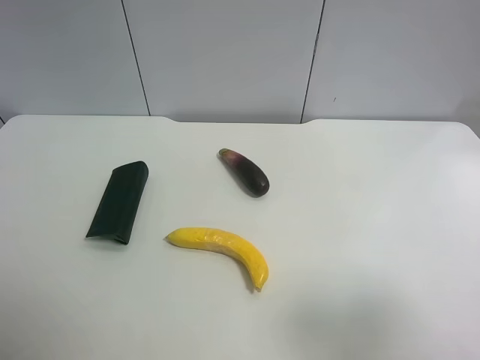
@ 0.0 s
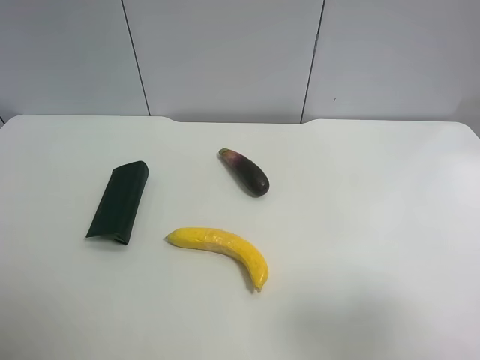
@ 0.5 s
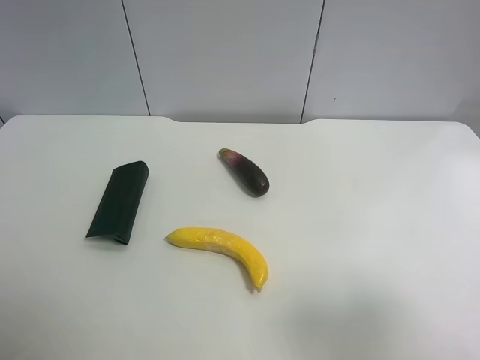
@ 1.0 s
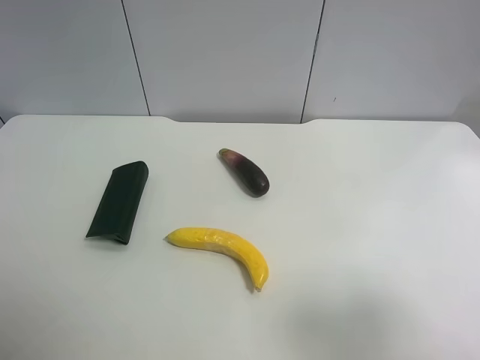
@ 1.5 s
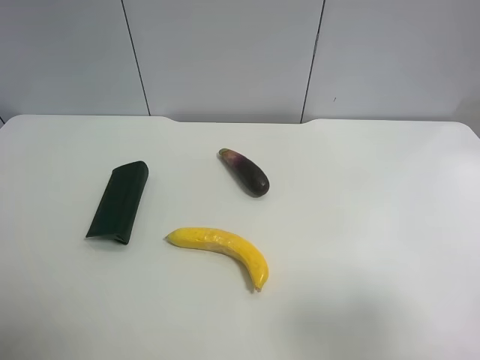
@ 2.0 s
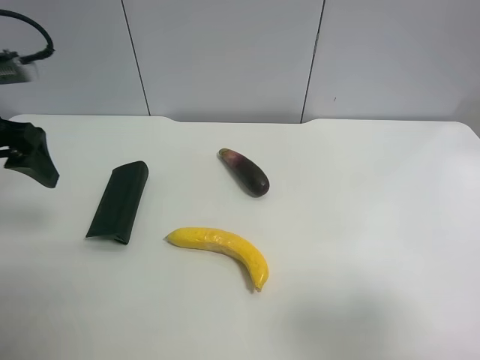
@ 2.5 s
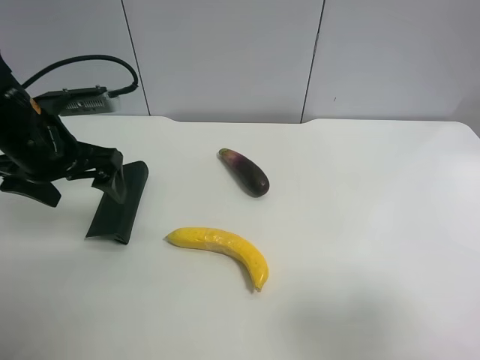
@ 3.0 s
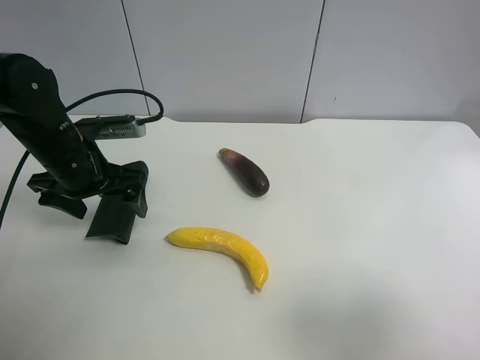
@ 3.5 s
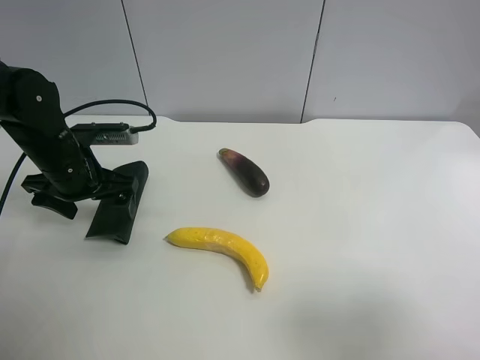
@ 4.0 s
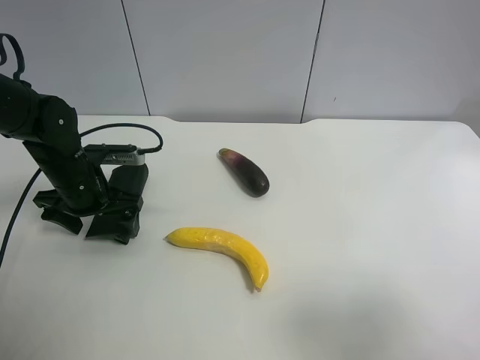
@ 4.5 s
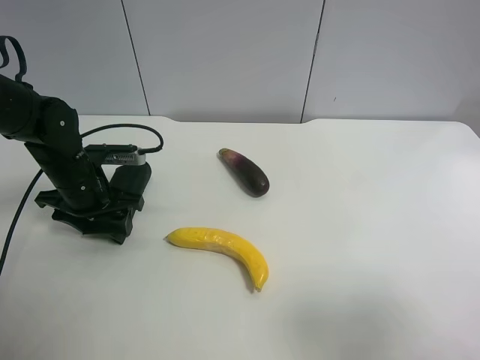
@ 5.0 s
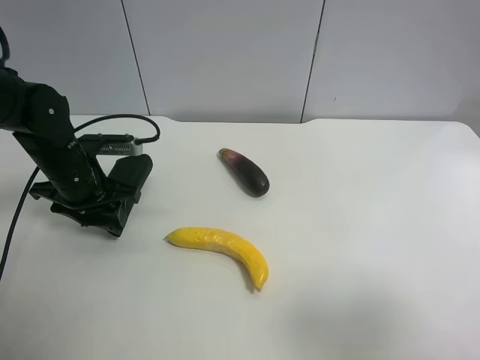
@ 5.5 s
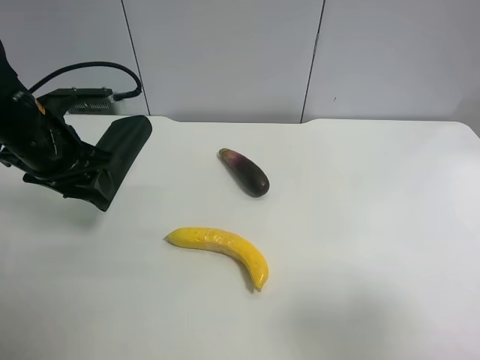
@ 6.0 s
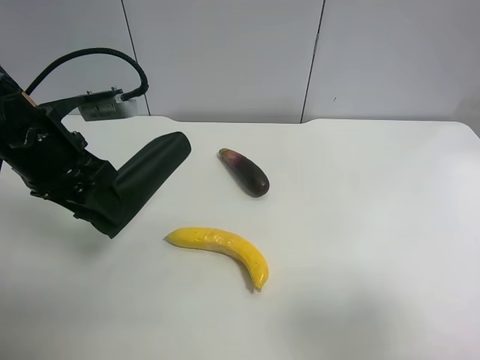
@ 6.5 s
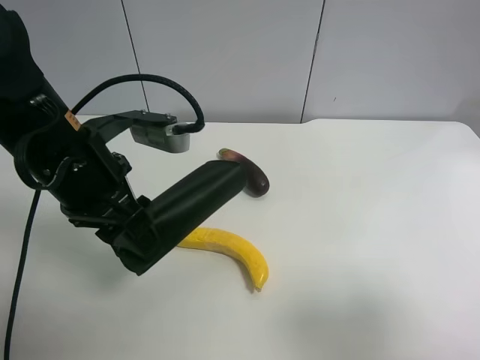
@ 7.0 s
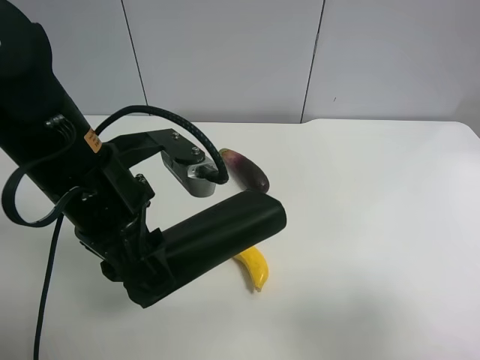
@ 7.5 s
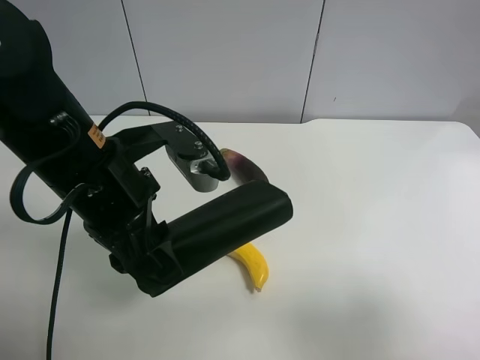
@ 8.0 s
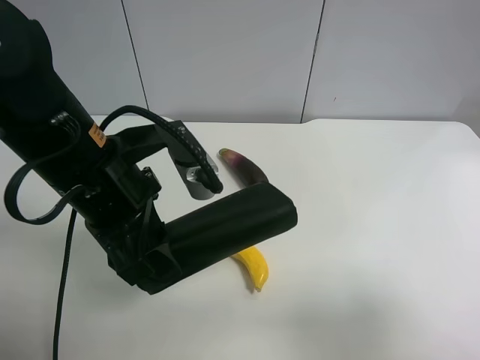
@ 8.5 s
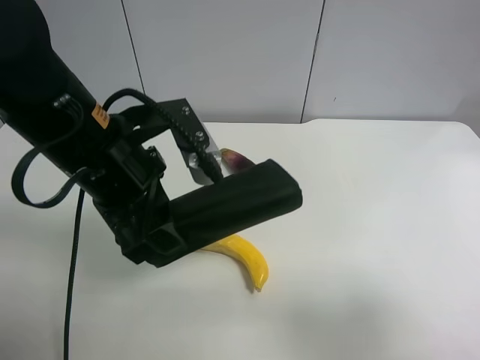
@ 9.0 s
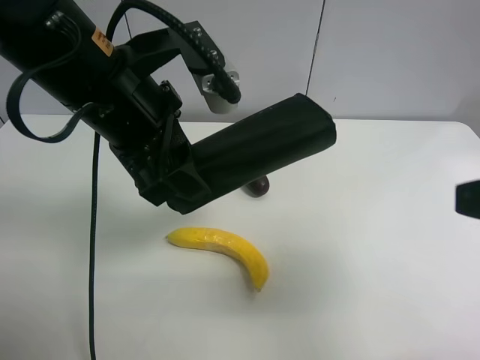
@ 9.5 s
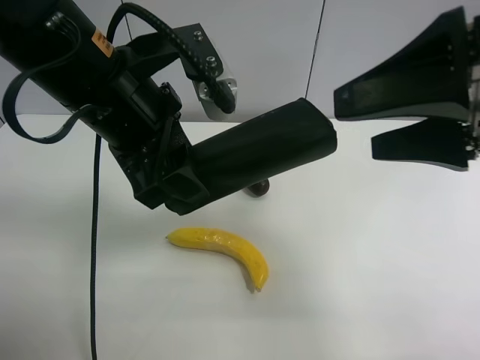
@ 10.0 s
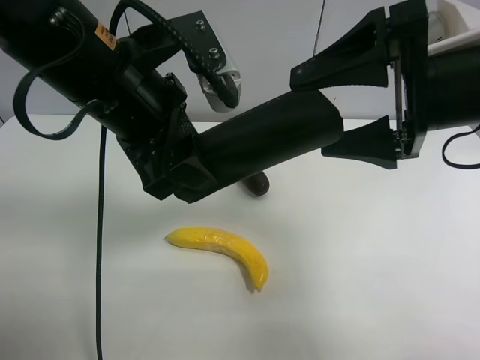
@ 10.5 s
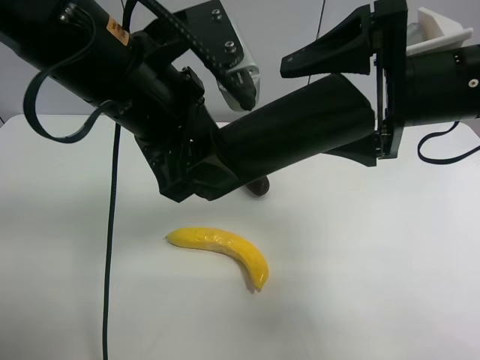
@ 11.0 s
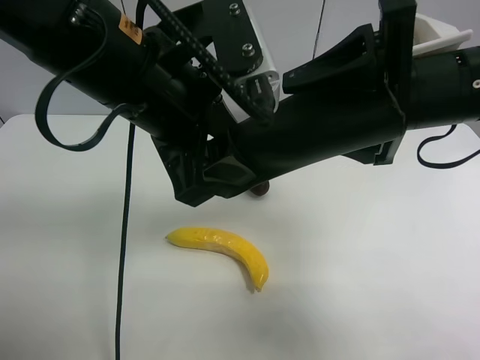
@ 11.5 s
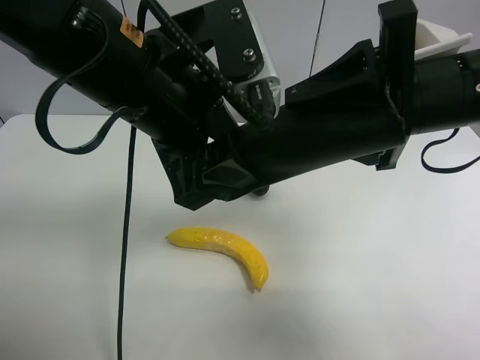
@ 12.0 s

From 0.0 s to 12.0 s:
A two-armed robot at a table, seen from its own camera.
Task of the whole recording: use the left gripper to pick up the item and transfer it from the left gripper to the right gripper.
From 2.0 s to 4.0 s: The left gripper goes roughly 25 cm downward, forward and to the right.
From 4.0 s to 6.0 s: The left gripper is displaced upward by about 5 cm, and closes its fingers.
From 6.0 s to 8.0 s: The left gripper shifts about 15 cm to the right and backward.
From 8.0 s to 10.0 s: The right gripper shifts roughly 20 cm forward and to the left. The left gripper travels upward by some 5 cm.
From 10.0 s to 12.0 s: The right gripper goes roughly 5 cm forward, and closes its fingers.

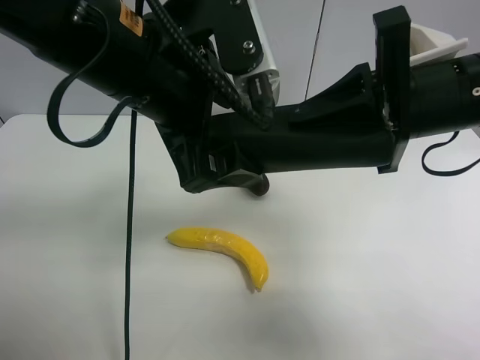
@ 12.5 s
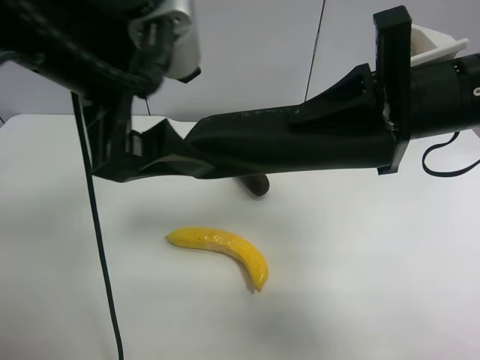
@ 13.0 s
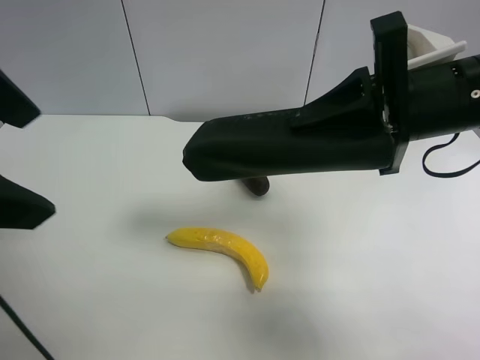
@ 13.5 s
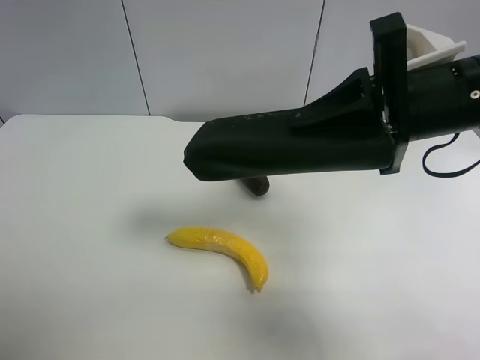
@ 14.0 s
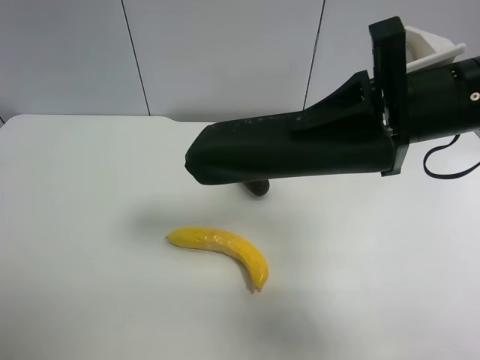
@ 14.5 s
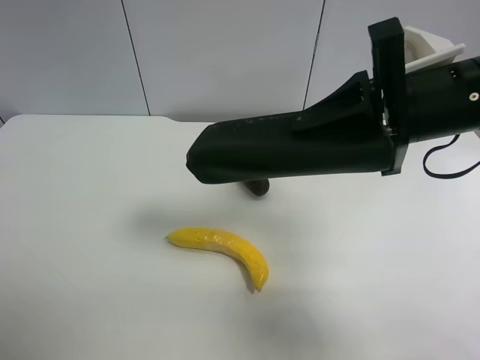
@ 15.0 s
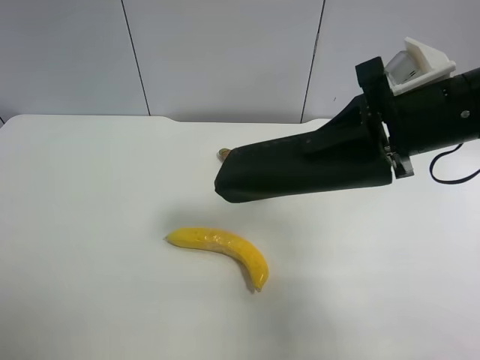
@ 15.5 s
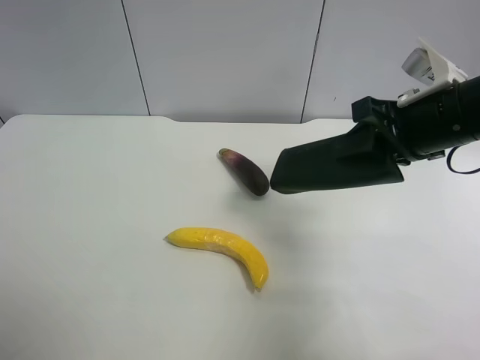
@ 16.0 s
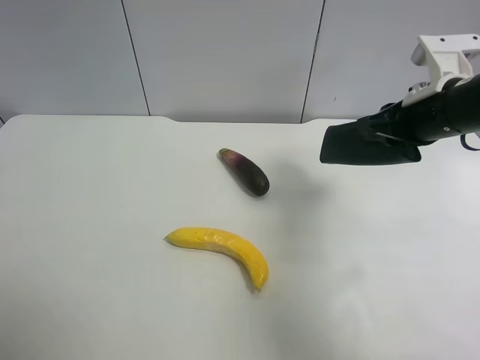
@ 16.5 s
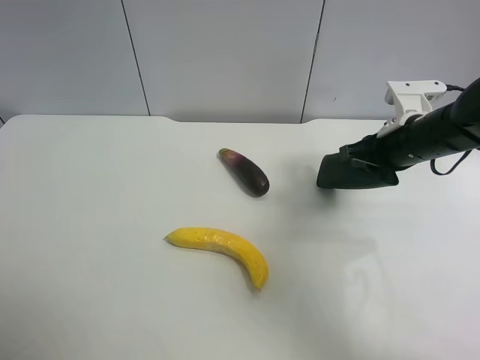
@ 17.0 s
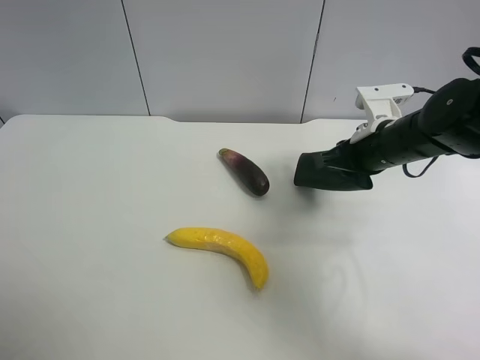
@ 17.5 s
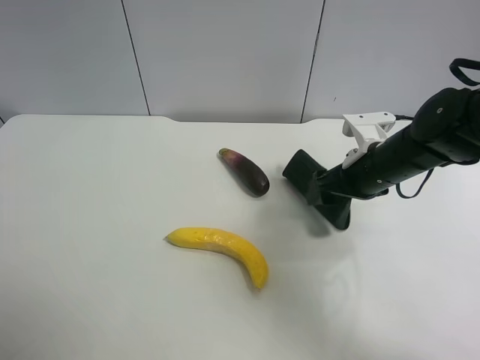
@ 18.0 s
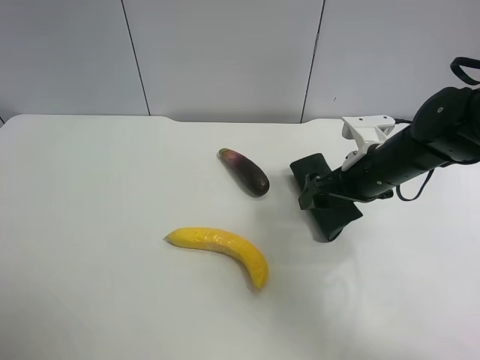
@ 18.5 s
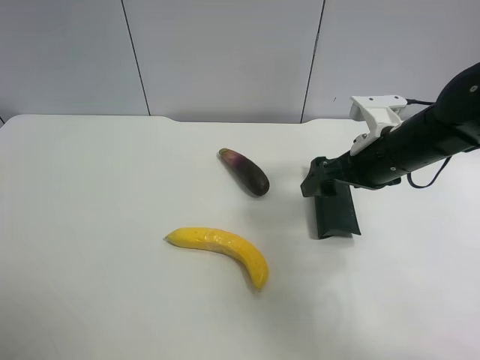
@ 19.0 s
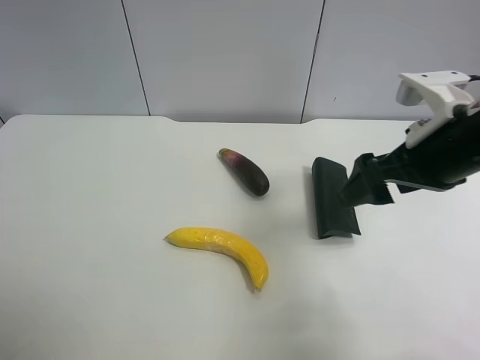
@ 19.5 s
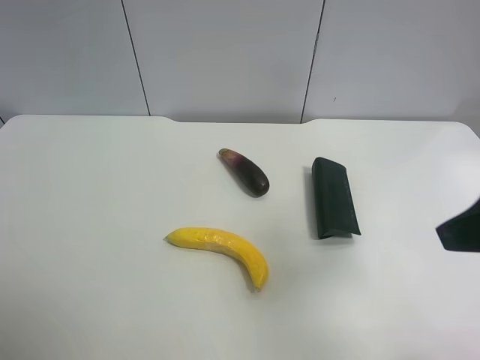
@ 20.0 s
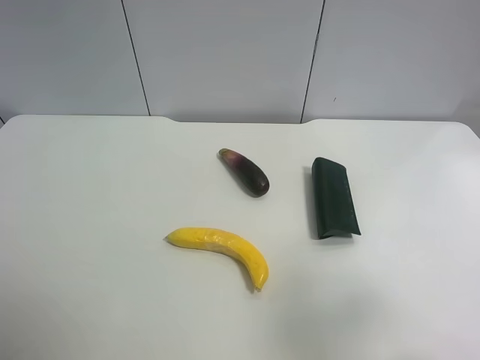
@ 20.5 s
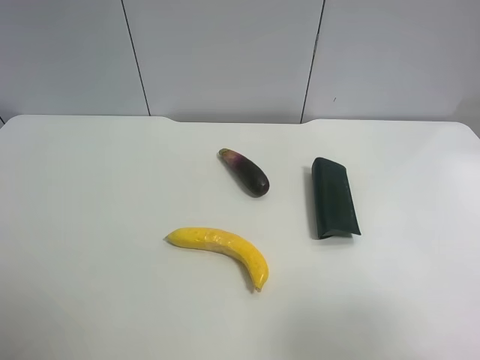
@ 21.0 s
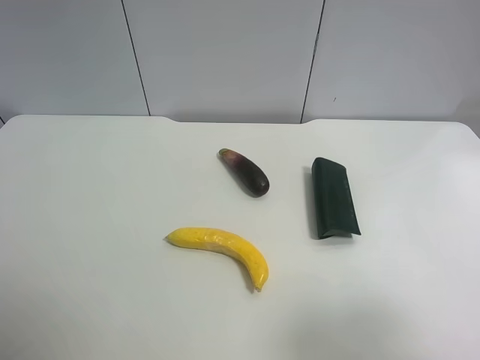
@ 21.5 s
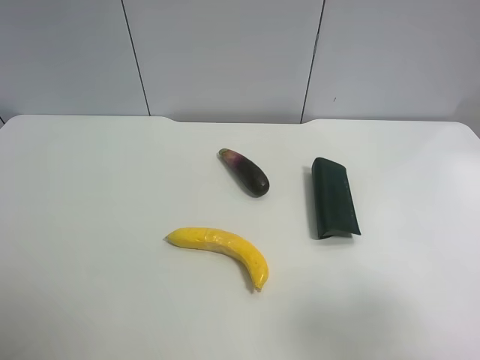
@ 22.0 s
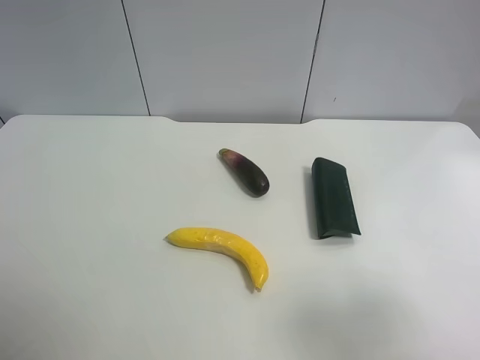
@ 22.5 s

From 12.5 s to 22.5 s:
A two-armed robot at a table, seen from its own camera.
Task of the whole recording: use the left gripper to pick up the item and transfer it from the left gripper to the right gripper.
From 12.5 s to 14.5 s: The left gripper travels to the left and backward by approximately 35 cm.
From 14.5 s to 16.5 s: The right gripper shifts some 10 cm forward, to the right and downward.
From 16.5 s to 18.5 s: The right gripper goes roughly 10 cm downward, and opens.
From 18.5 s to 20.5 s: The right gripper shifts roughly 30 cm backward and upward.

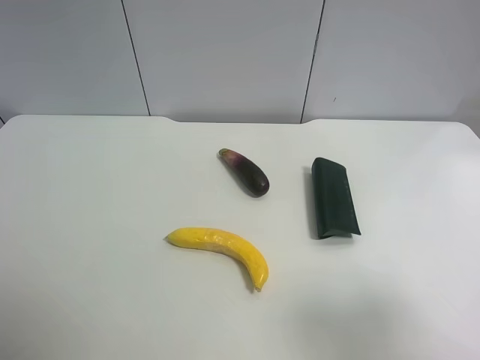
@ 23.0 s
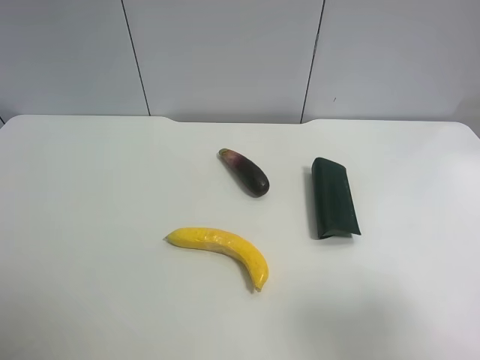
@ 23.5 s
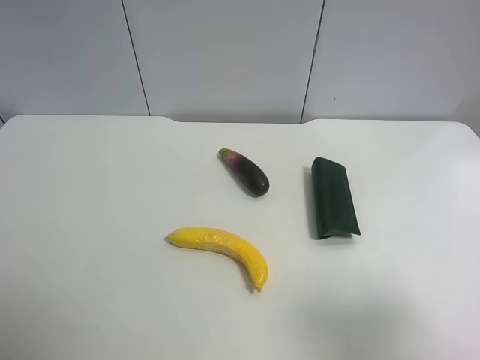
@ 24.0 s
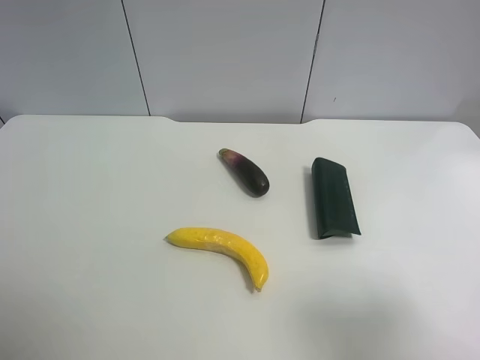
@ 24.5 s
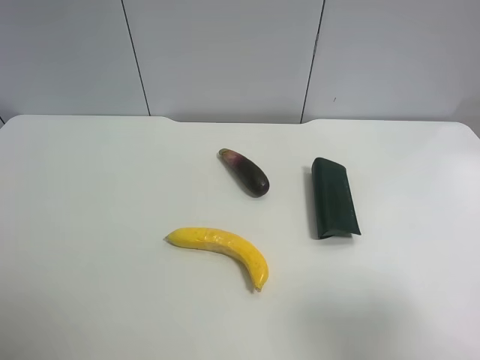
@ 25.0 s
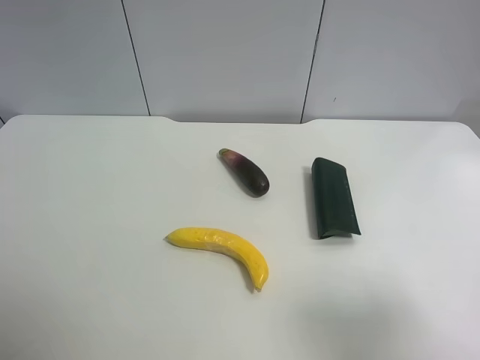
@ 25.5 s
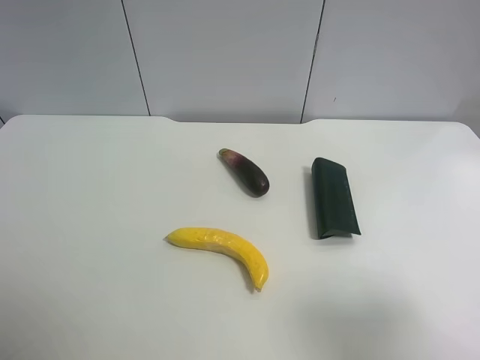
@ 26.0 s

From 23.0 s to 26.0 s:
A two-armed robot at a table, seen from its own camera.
Task of the whole recording: use the left gripper to pick up the item and transfer it from the left gripper to the right gripper.
From 24.5 s to 26.0 s: Both grippers stay about where they are.
